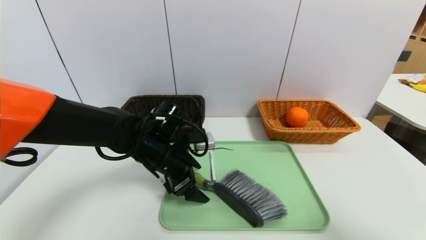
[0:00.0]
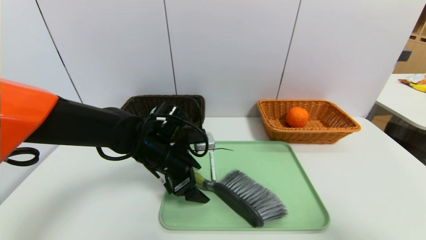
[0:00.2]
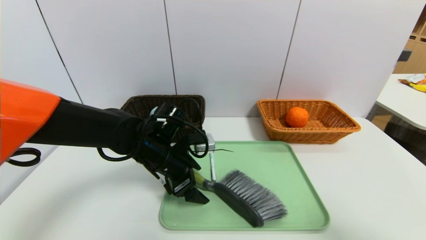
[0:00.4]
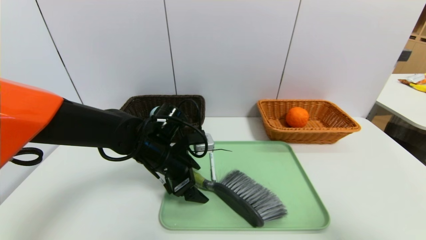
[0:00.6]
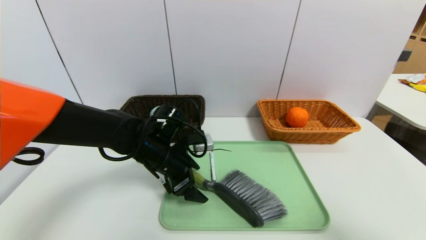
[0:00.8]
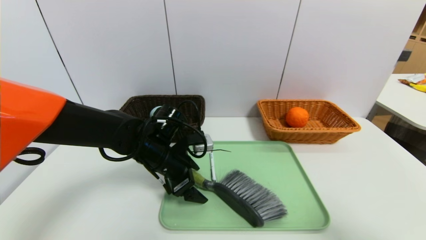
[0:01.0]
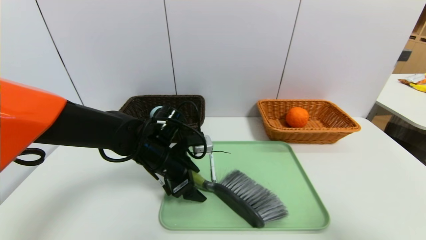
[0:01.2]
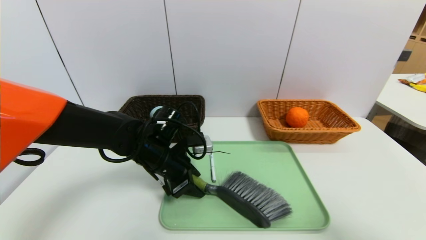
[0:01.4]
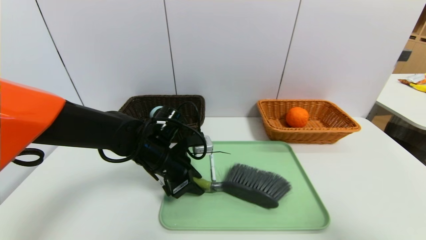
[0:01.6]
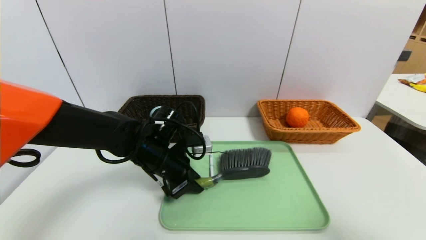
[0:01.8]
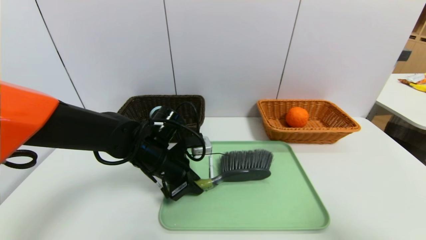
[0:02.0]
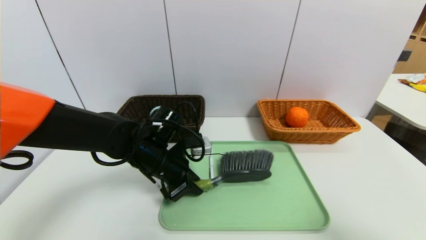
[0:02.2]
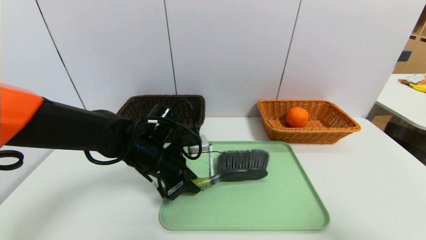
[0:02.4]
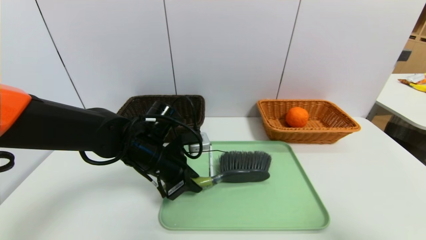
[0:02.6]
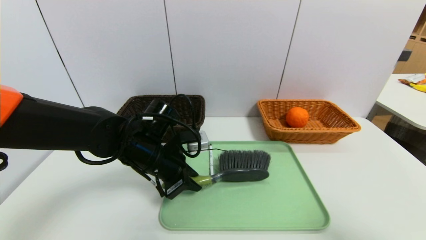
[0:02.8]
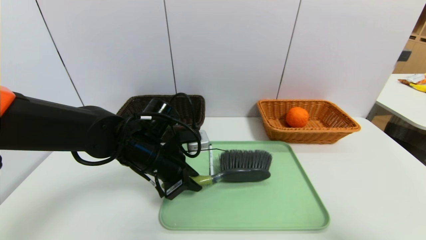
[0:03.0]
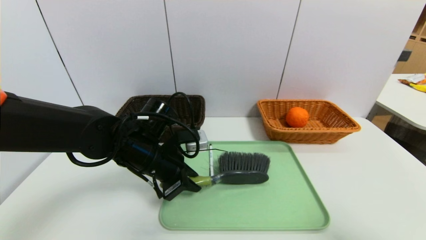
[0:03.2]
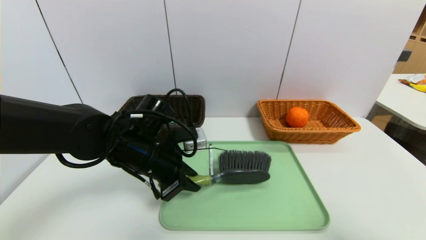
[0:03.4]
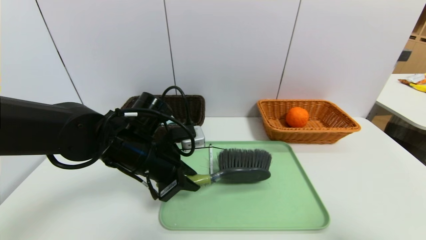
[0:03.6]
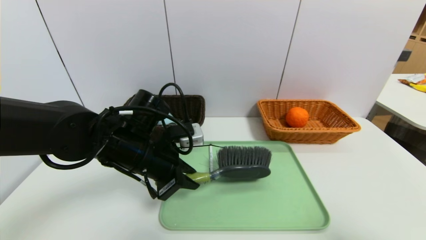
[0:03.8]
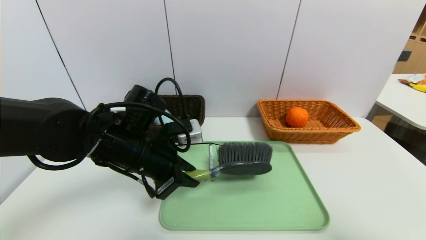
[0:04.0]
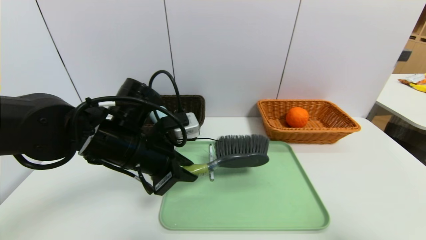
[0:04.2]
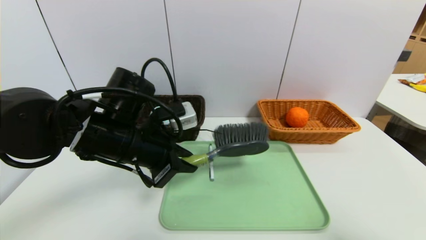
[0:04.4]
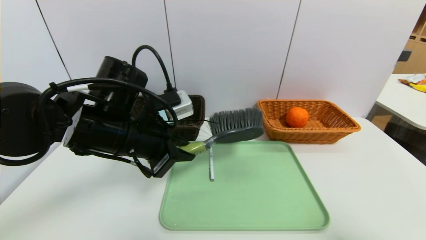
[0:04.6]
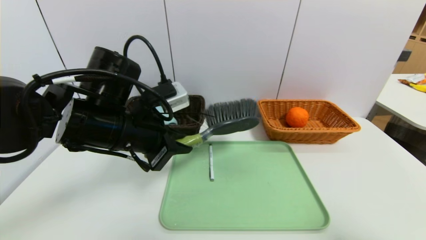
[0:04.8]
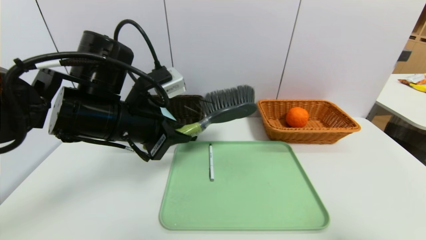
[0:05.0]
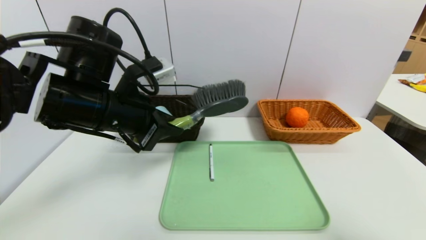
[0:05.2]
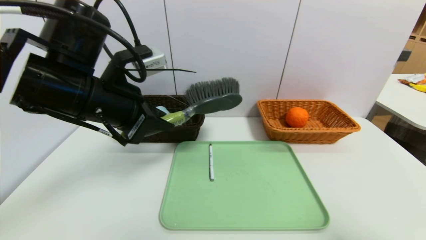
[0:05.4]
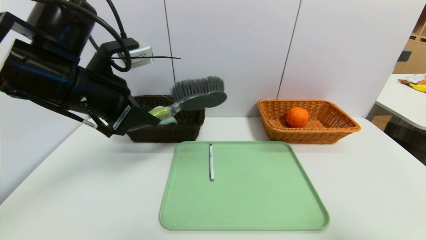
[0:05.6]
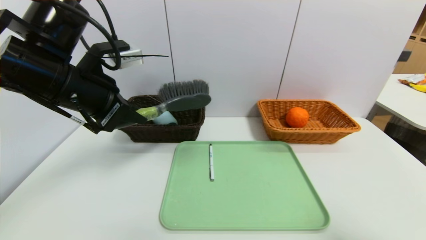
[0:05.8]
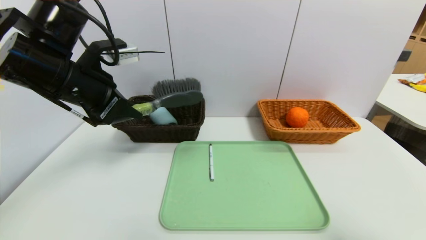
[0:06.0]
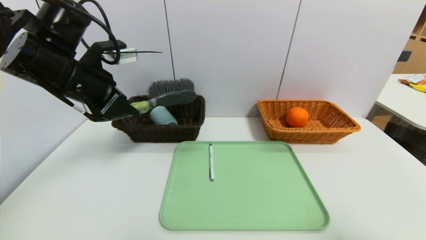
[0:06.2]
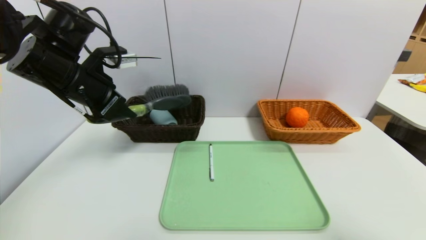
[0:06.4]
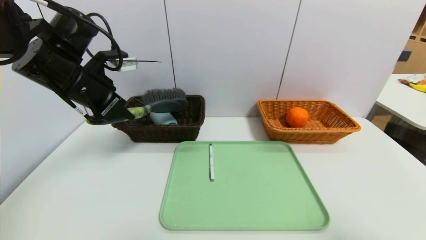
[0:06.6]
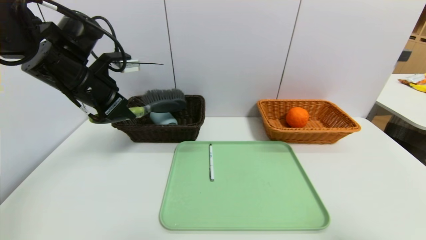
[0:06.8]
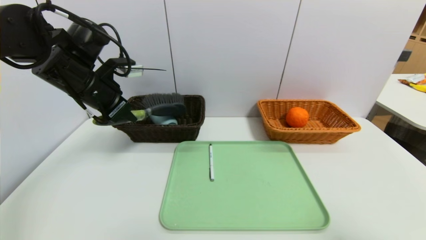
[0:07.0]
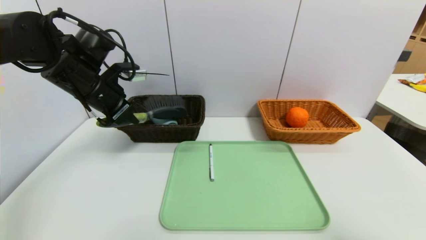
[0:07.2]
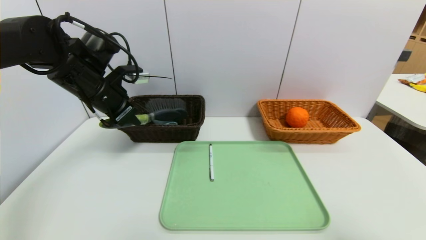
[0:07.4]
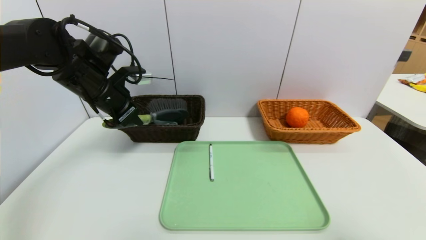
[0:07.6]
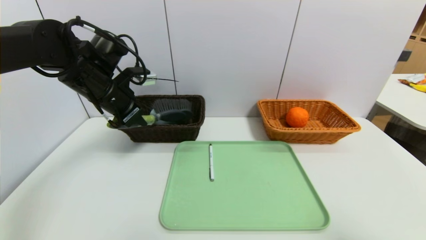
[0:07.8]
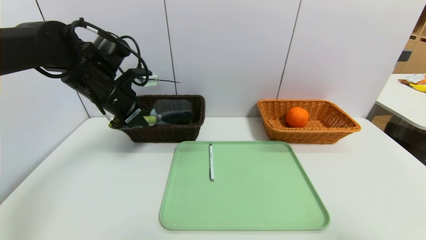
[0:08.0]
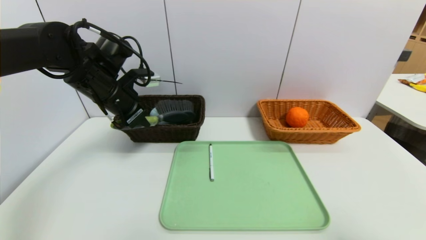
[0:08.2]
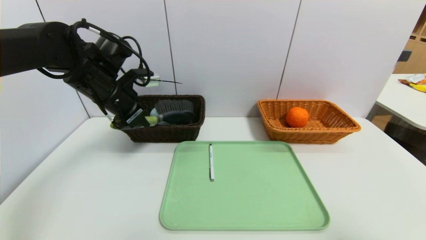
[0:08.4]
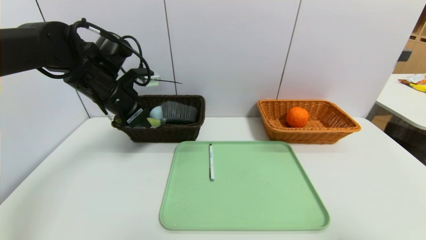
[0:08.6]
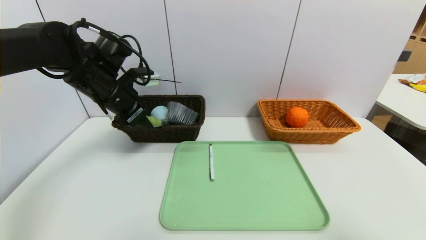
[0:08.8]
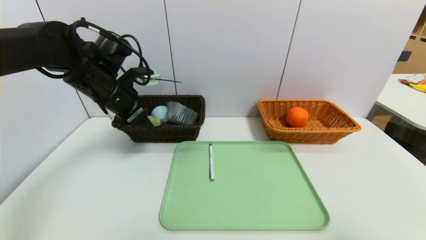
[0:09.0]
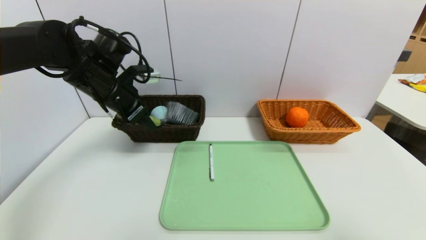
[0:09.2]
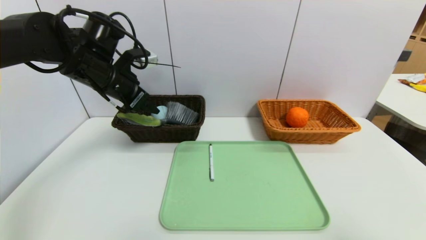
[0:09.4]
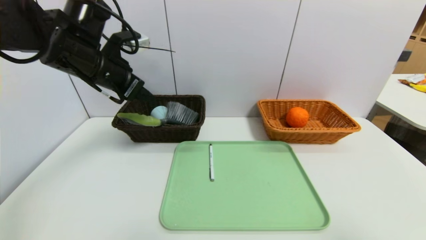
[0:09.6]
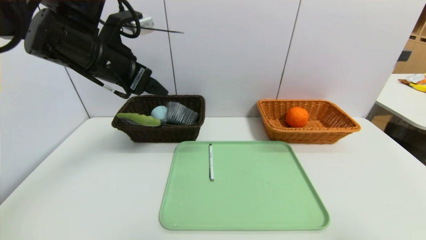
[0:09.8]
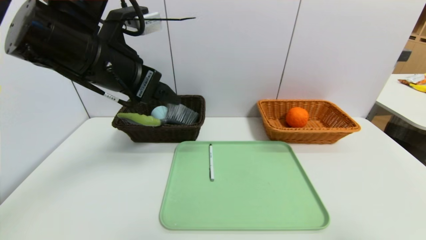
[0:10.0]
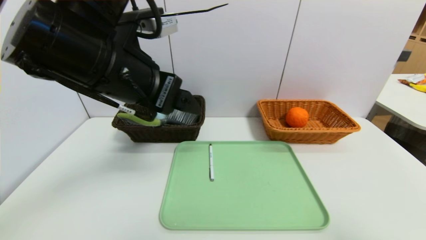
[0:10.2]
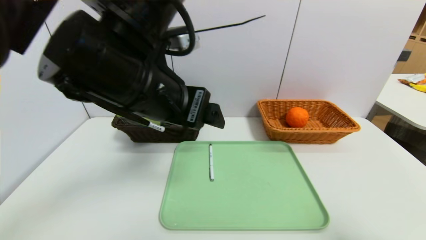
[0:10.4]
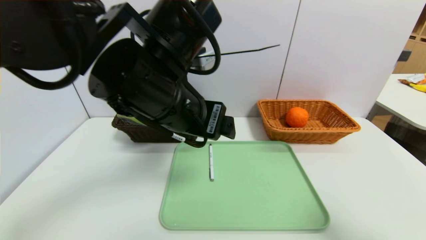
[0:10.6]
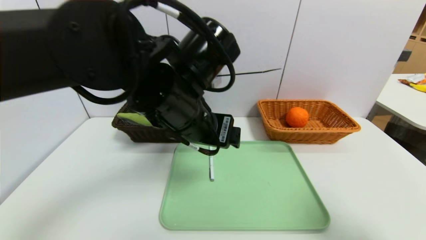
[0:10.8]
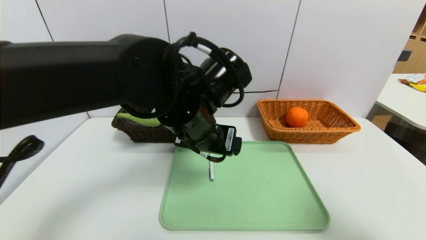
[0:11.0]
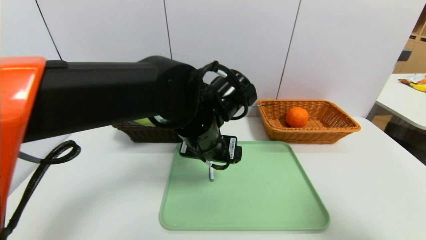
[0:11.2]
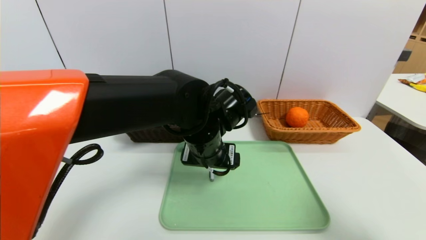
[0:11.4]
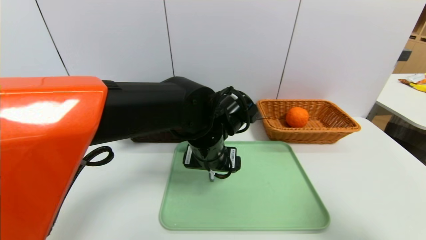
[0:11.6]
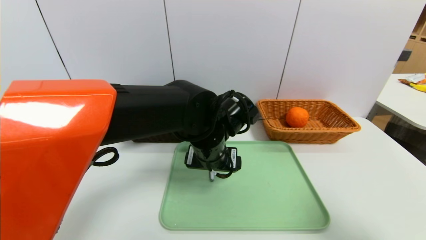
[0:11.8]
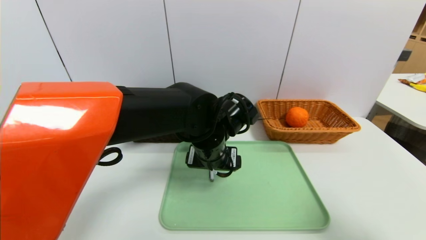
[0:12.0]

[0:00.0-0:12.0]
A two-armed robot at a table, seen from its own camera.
Task of the whole recording: place the food in the right basket with the right gripper, and place the non food items in the left basket with the left gripper.
Step, 0:00.0 to 0:09.8: Grasp the brush and put it in the left basket.
0:00.0 to 0:01.6: The left gripper closes its fingers.
0:01.6 to 0:03.0: There are only small adjustments of the grippers.
0:03.0 to 0:04.4: The left gripper is displaced upward by about 5 cm.
0:04.4 to 0:06.0: The left gripper heads upward and to the left, covering about 10 cm.
0:06.0 to 0:07.6: The left gripper moves forward, about 5 cm.
0:07.6 to 0:09.0: The left gripper opens its fingers.
0:09.0 to 0:10.4: The left gripper travels backward, to the right and upward by approximately 20 cm.
0:10.4 to 0:12.0: The left gripper is displaced downward, to the right and forward by about 20 cm.

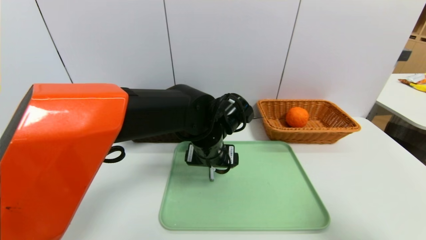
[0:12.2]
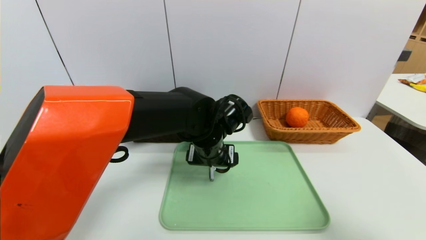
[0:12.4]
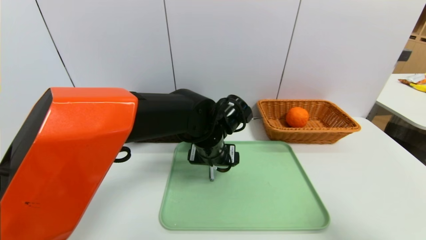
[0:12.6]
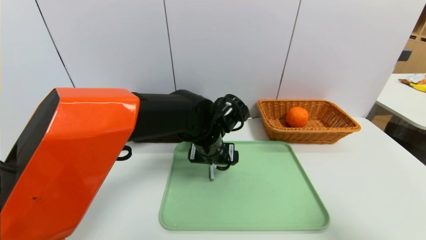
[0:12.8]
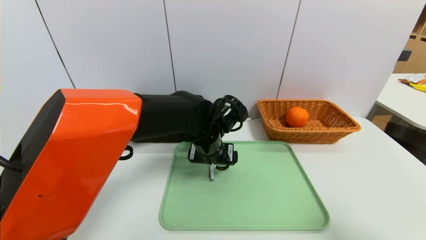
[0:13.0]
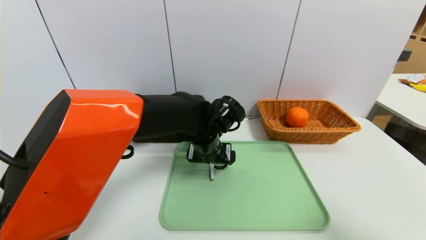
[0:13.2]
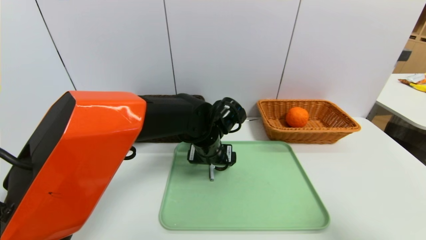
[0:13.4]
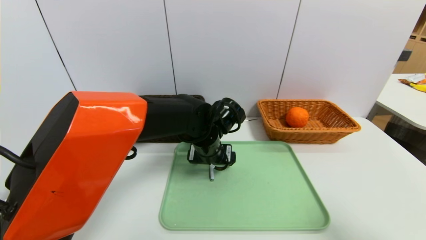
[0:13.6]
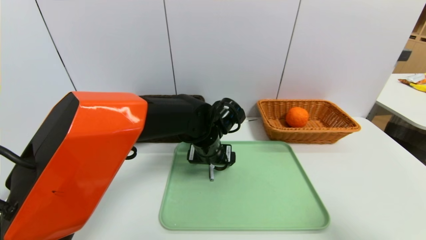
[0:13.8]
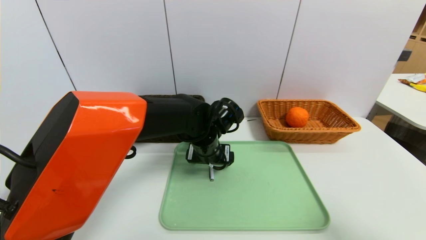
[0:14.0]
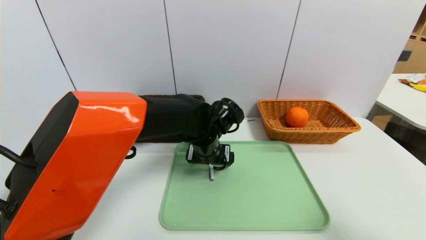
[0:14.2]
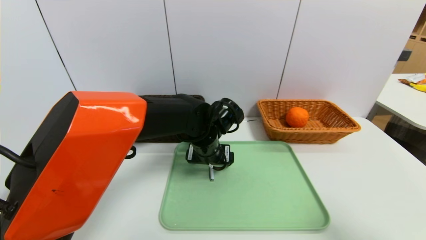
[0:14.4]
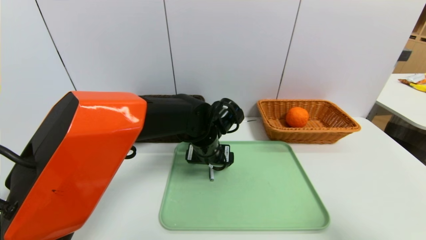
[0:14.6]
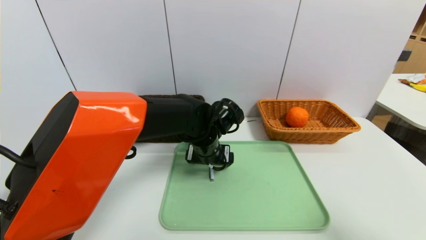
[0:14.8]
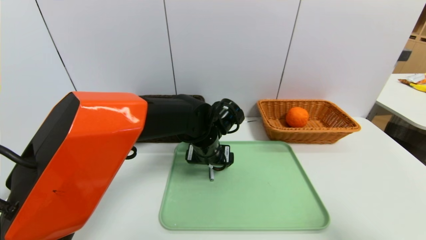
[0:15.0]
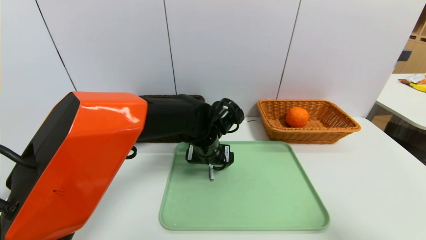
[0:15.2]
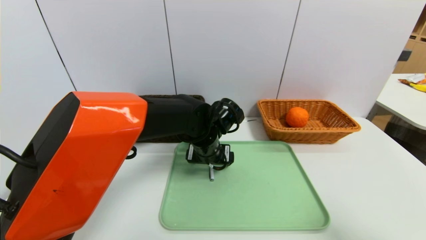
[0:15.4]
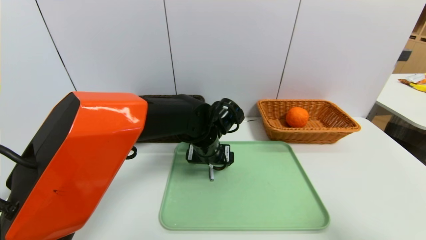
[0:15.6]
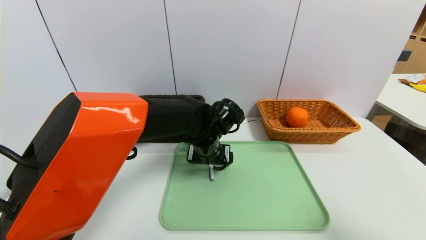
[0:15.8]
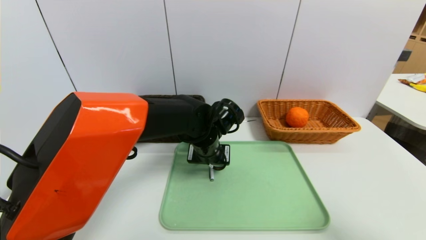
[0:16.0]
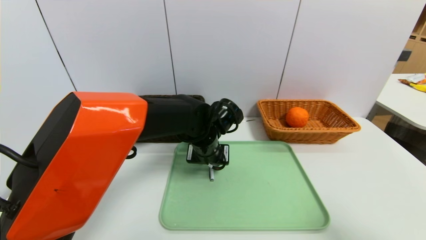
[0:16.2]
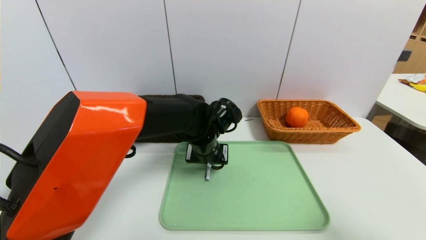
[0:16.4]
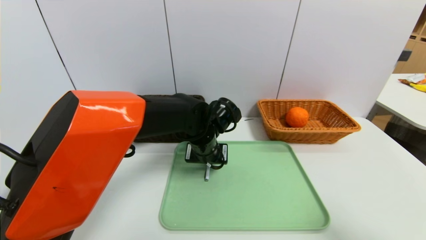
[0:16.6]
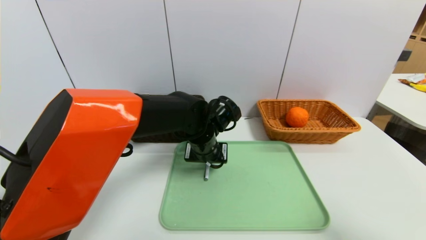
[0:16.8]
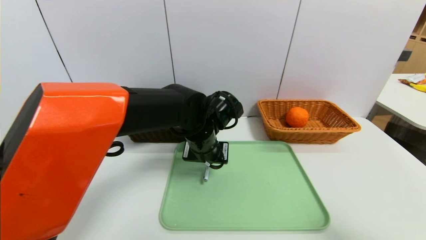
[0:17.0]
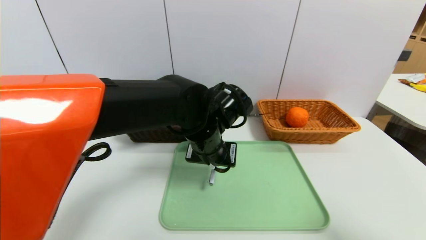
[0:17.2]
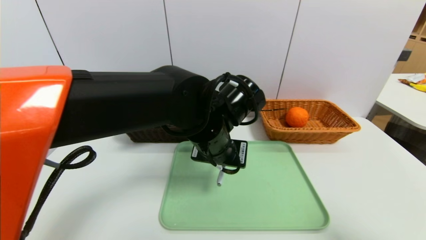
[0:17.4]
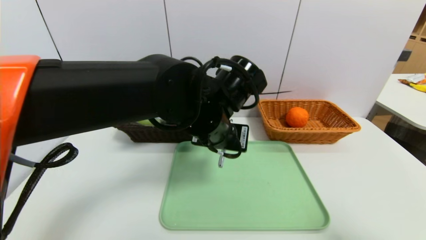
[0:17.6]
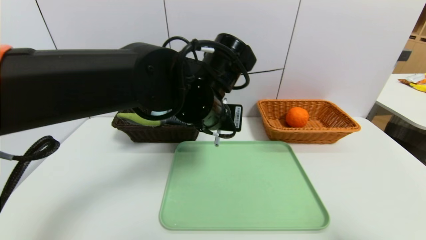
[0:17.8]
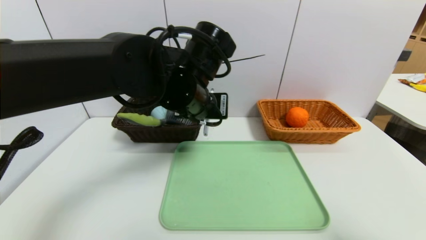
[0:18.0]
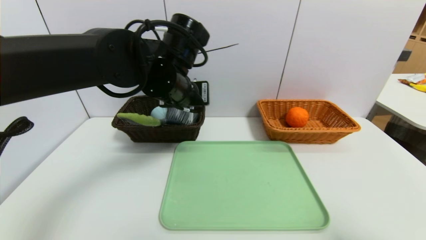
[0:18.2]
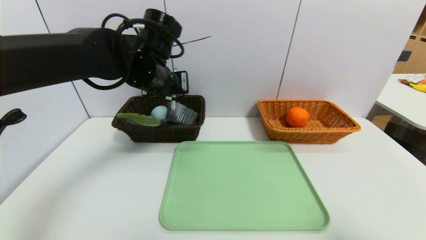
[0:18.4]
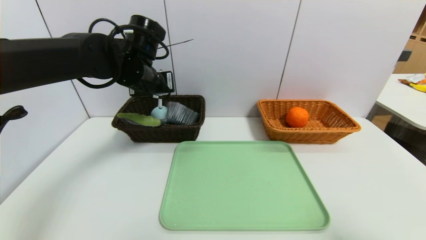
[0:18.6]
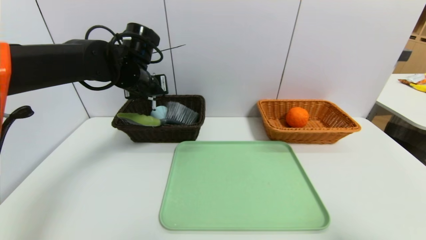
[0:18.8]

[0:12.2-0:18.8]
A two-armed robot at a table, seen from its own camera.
Task of the whole recording: place the food in the right basket with the right gripper, and place the non food items in the left basket with the left gripper.
0:12.2 to 0:13.8: The grippers make only small movements.
0:13.8 to 0:15.4: Neither gripper changes place.
0:15.4 to 0:17.2: The left gripper travels upward by roughly 5 cm, and closes up.
0:17.2 to 0:18.8: The left gripper travels to the left, forward and upward by roughly 20 cm.
